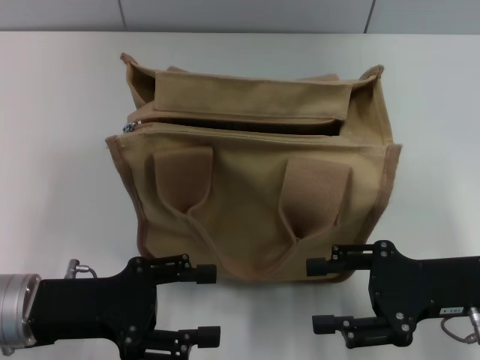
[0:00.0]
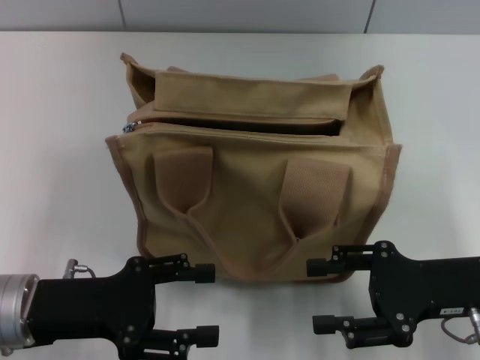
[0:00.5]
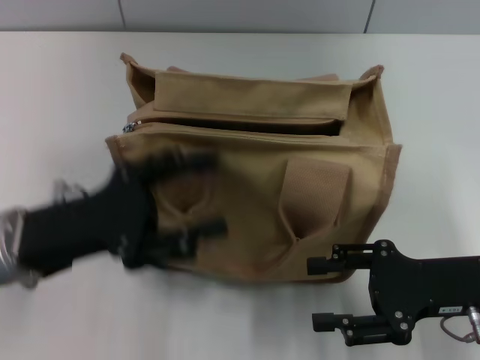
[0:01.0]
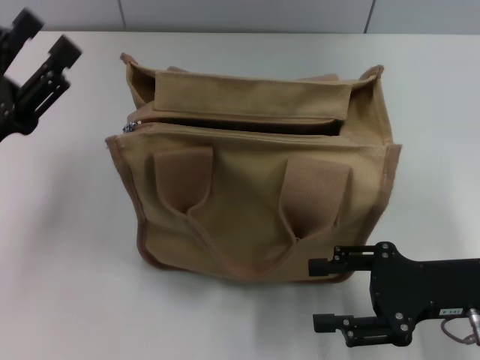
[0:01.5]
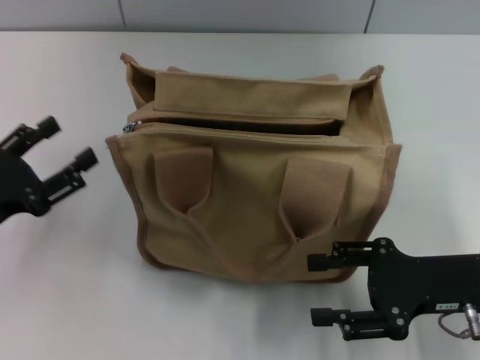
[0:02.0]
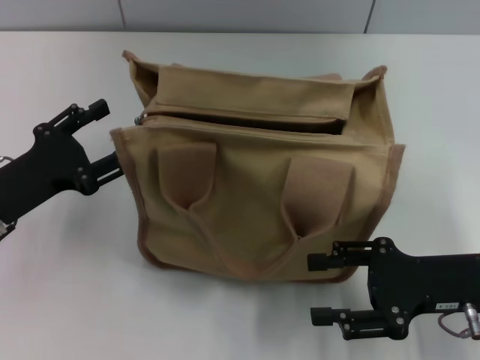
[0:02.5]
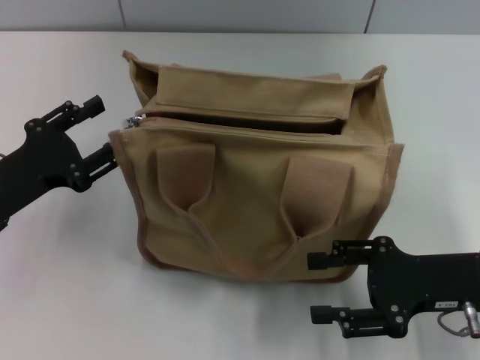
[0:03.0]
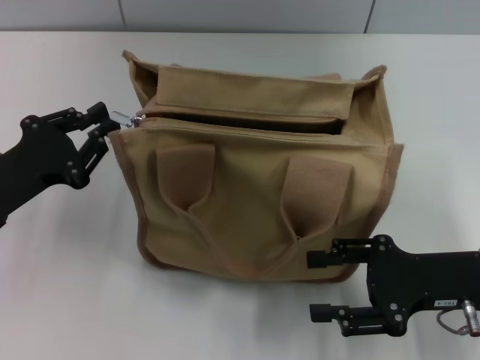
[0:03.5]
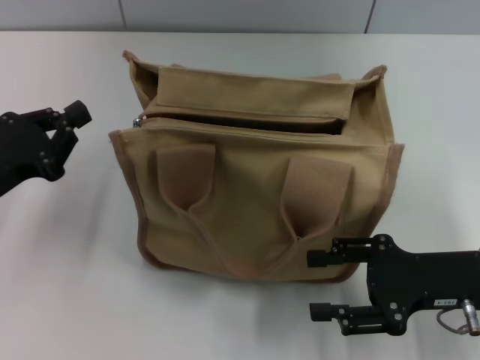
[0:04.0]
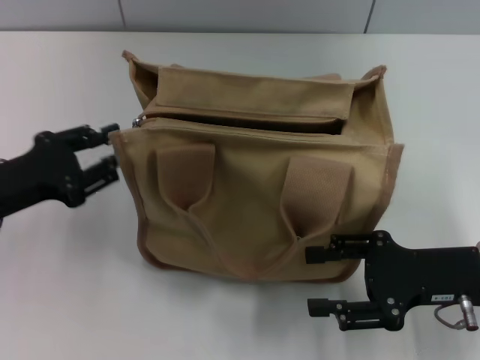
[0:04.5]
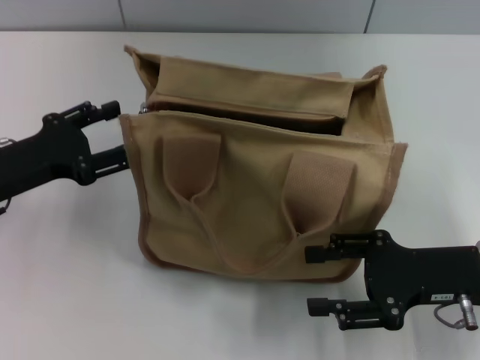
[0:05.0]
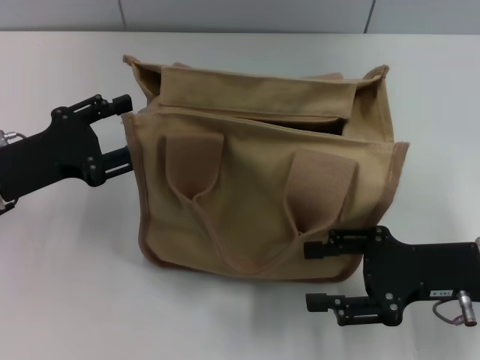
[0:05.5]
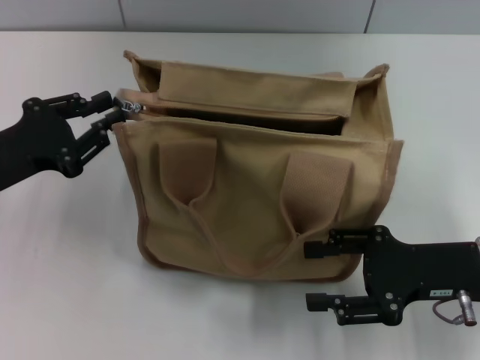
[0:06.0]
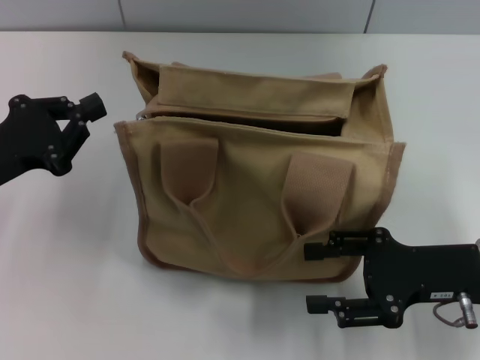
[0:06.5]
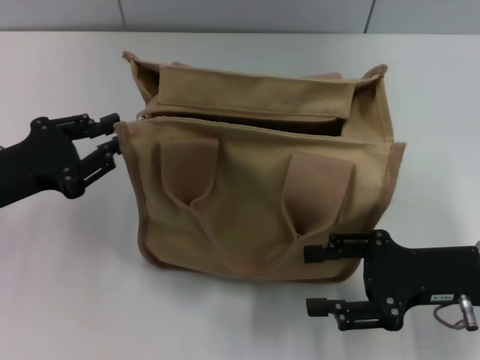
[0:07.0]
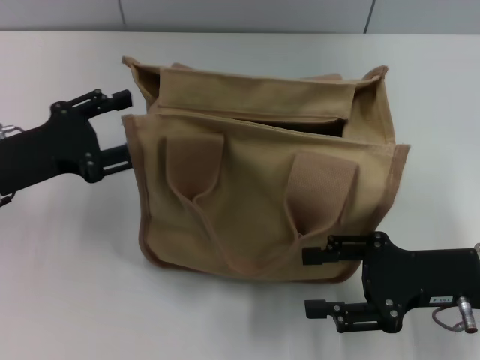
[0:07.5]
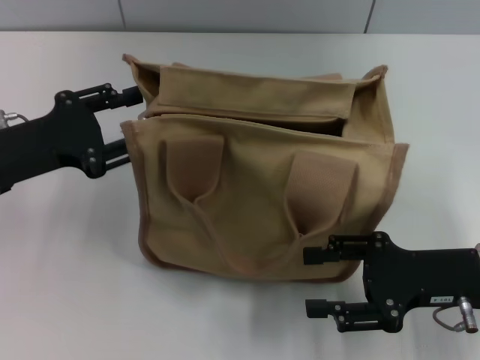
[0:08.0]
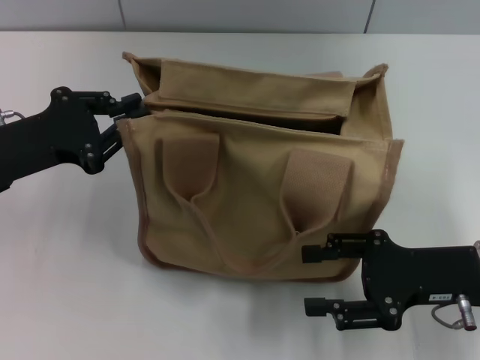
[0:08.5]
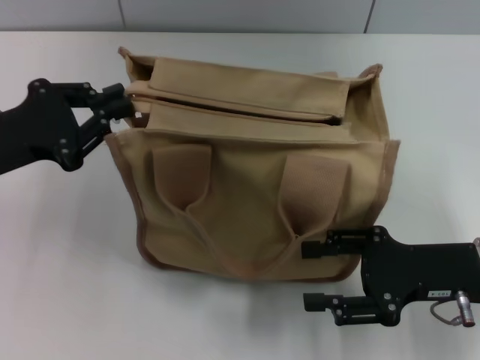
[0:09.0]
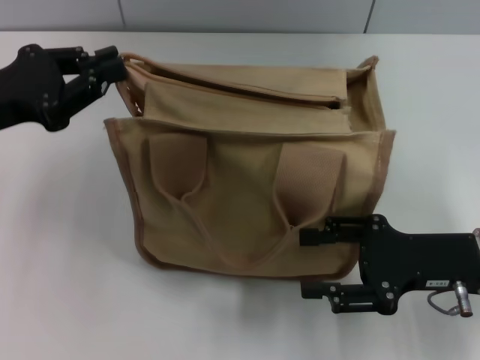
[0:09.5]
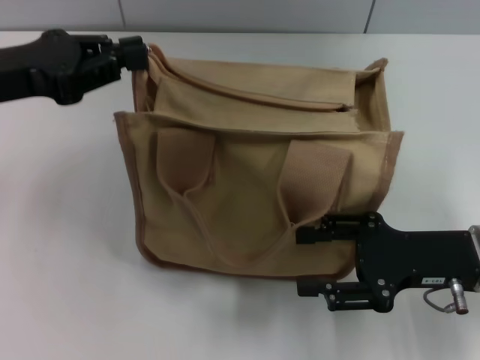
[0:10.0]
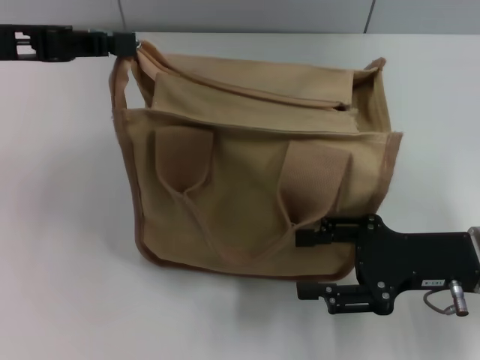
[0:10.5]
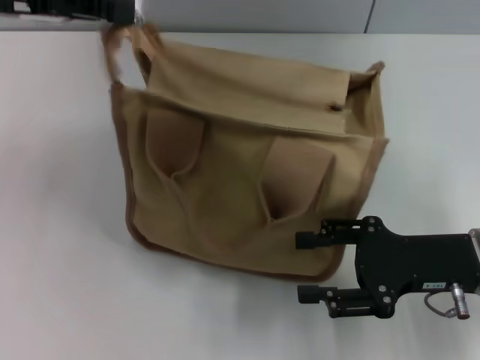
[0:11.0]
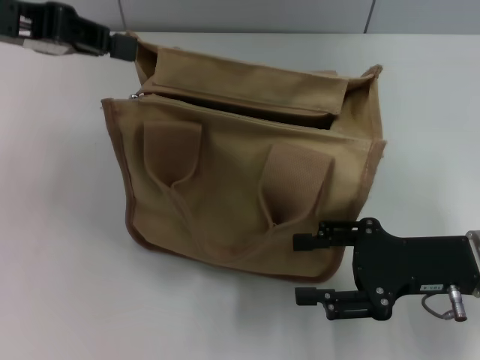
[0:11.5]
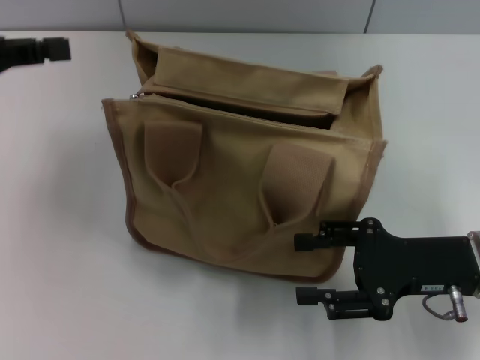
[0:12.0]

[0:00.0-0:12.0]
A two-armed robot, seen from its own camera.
0:00.0 to 0:02.0: The left gripper goes approximately 10 cm to the left.
0:02.0 to 0:04.0: The left gripper closes.
0:04.0 to 0:06.0: The left gripper opens its fingers.
0:06.0 to 0:08.0: The left gripper closes, then reopens.
0:08.0 to 0:10.0: The left gripper is displaced upward by some 10 cm, and closes up.
0:10.0 to 0:12.0: The left gripper is displaced to the left by roughly 5 cm.

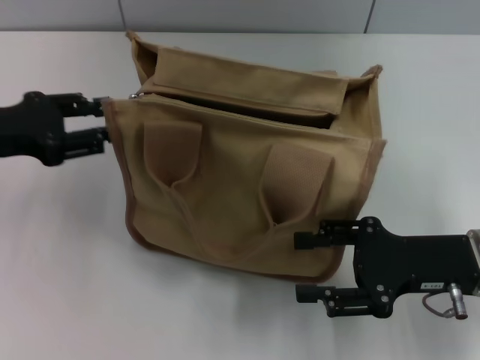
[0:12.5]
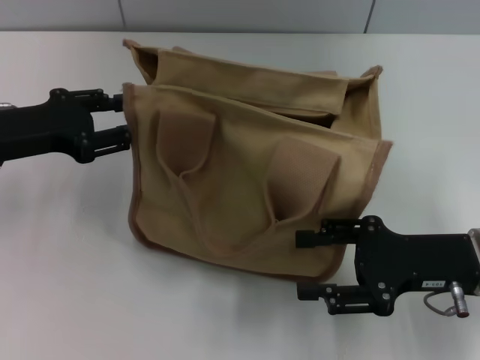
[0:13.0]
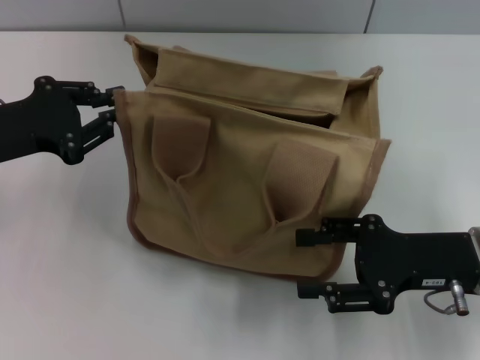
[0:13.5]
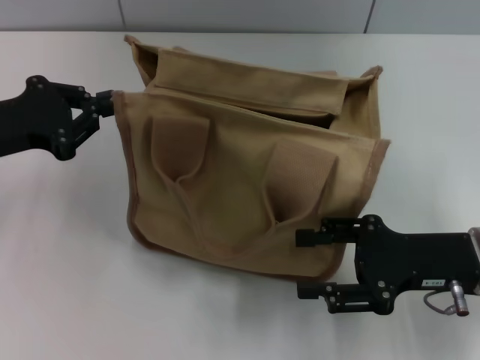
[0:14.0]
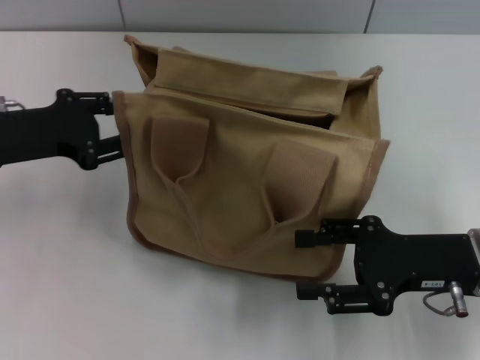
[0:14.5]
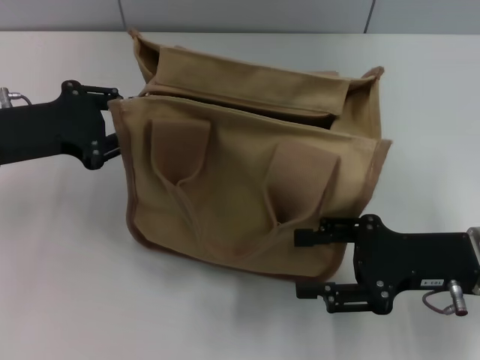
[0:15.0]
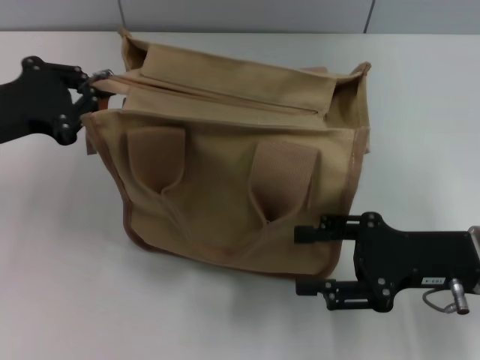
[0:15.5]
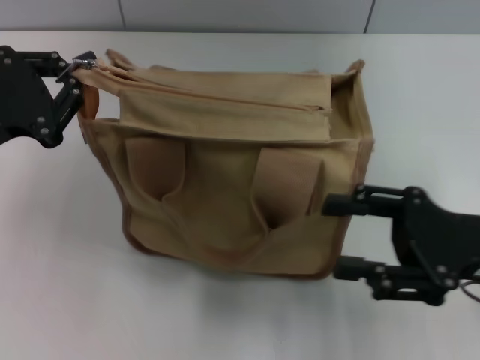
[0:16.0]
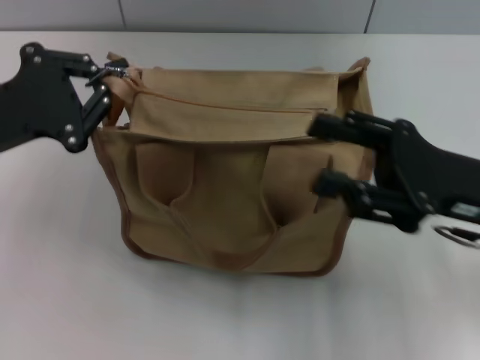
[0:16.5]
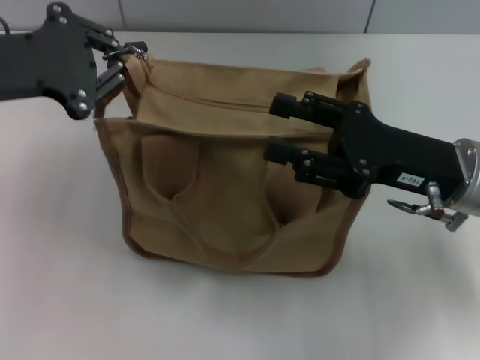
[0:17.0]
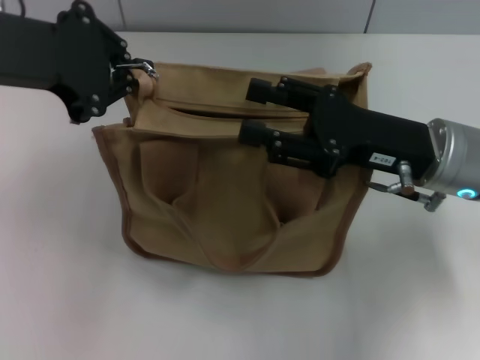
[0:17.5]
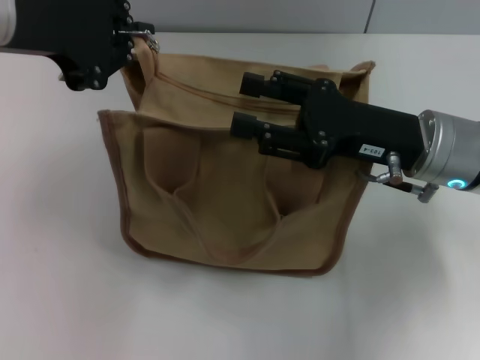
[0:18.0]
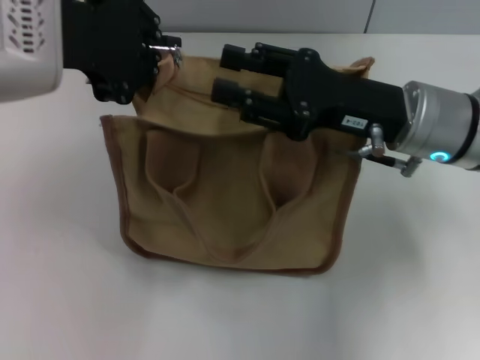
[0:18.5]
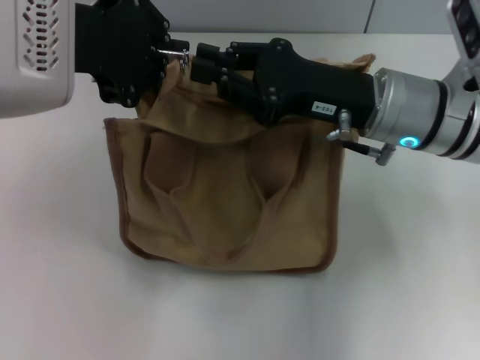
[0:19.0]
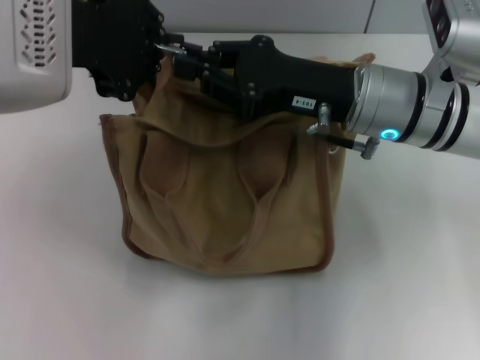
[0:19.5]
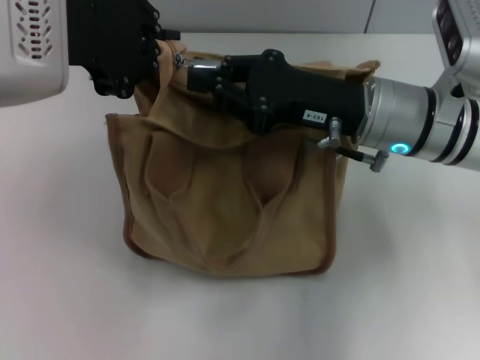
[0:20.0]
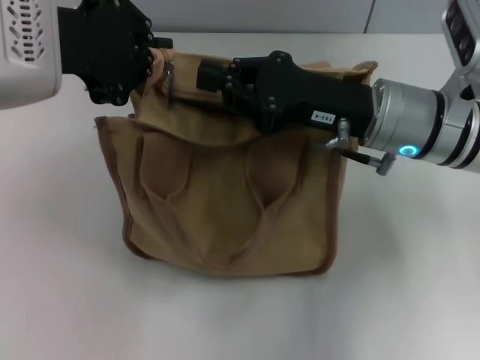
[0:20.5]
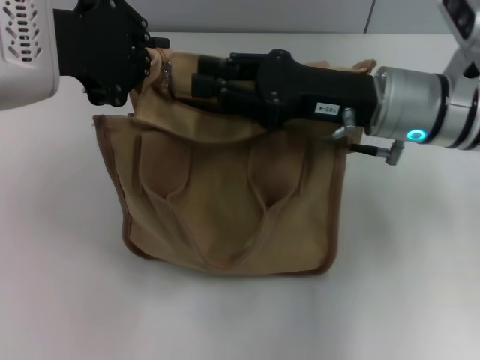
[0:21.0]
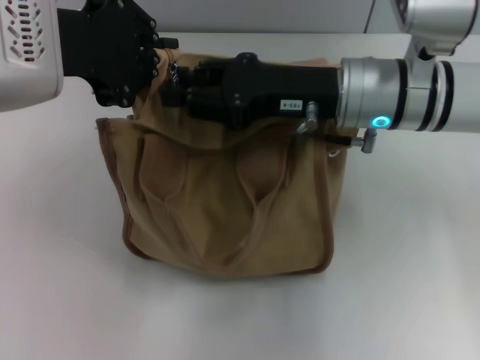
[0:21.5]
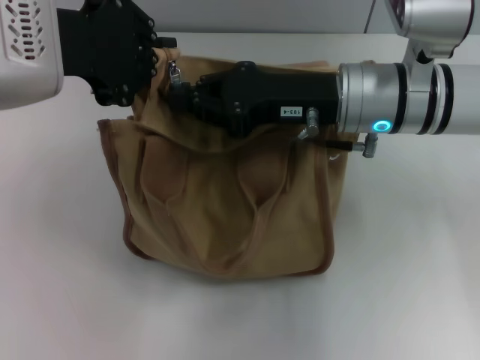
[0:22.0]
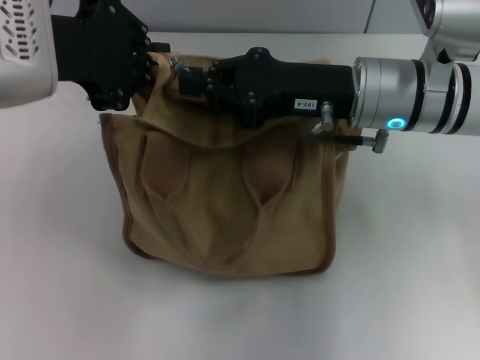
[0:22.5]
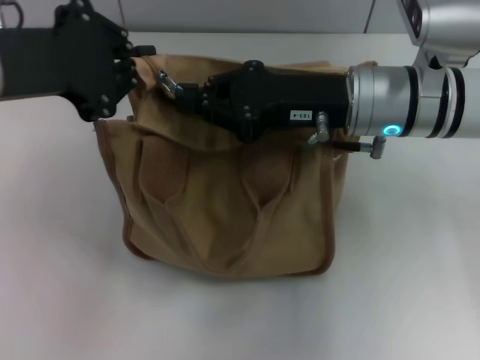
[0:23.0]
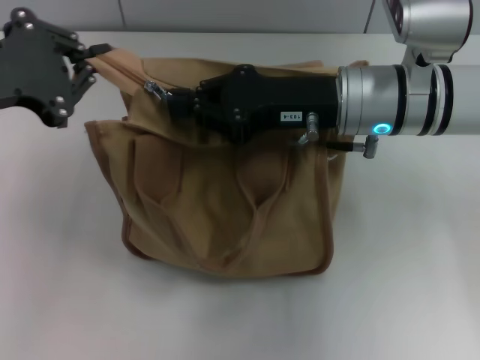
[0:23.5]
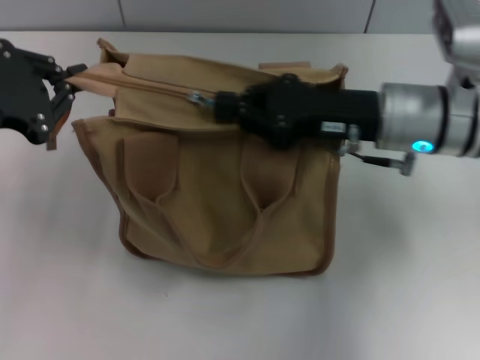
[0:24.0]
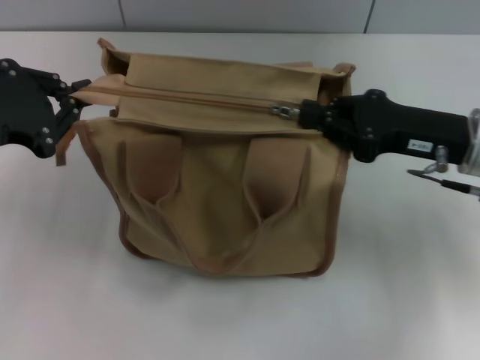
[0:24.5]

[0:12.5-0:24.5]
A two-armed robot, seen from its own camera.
0:12.5 to 0:14.5: The left gripper closes and opens again.
0:14.5 to 0:16.5: The left gripper closes up.
0:16.5 to 0:18.5: The left gripper heads upward and to the right, covering some 15 cm; the right gripper goes approximately 10 cm to the left and forward.
0:18.5 to 0:20.5: The right gripper closes.
0:20.5 to 0:22.5: The grippers move only a little.
0:22.5 to 0:24.5: The right gripper is displaced to the right by roughly 10 cm; the left gripper travels to the left and downward by approximately 15 cm.

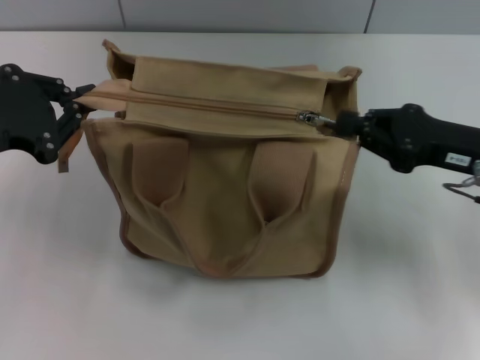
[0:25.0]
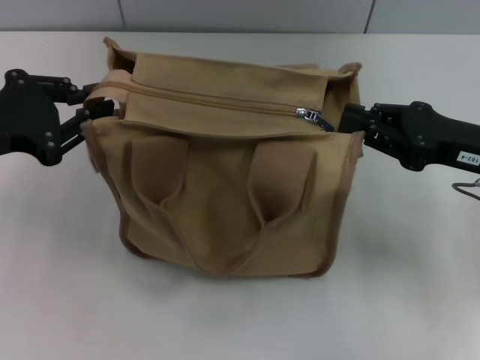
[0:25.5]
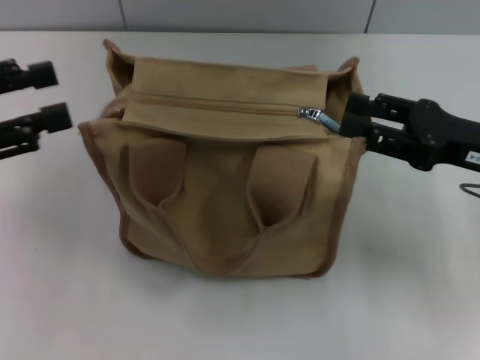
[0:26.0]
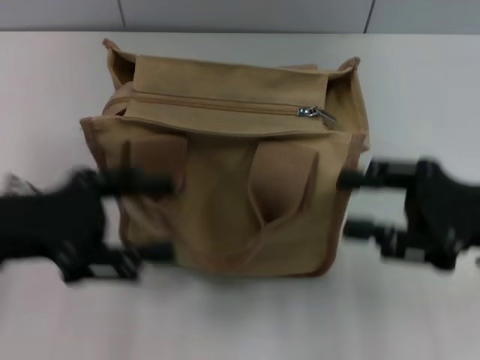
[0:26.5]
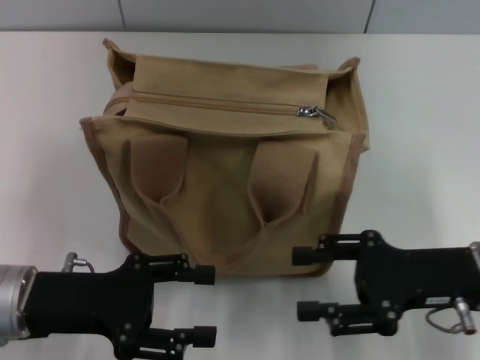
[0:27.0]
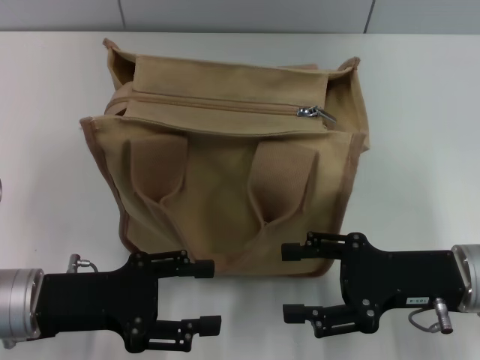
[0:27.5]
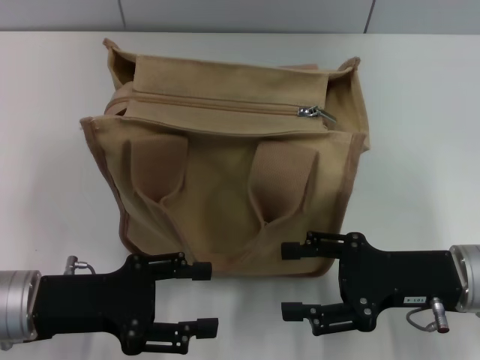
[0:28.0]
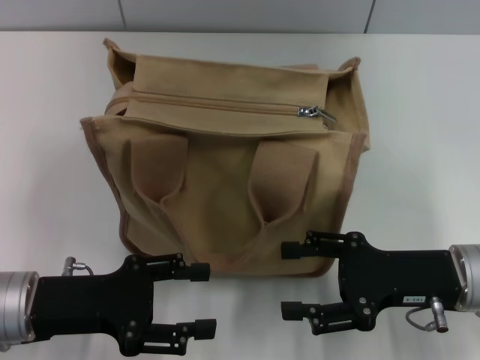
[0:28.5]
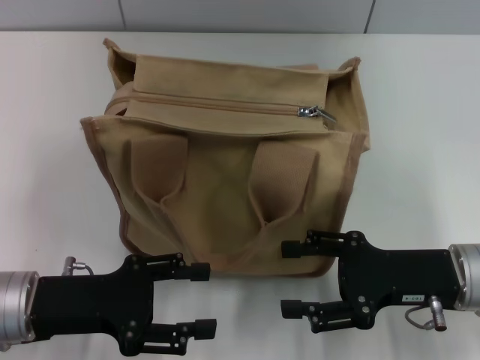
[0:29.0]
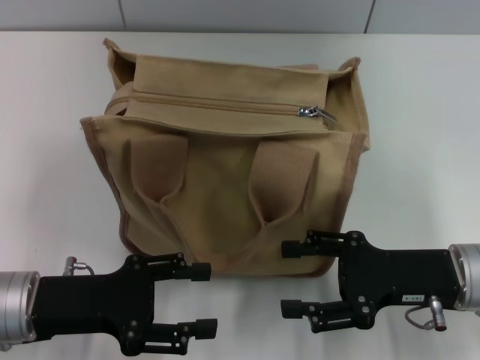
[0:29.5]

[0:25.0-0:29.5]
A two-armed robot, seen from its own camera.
Step, 0:25.5 to 0:26.0: Grab the zipper with your left hand.
0:25.0 to 0:27.0: The left gripper heads downward, backward and to the right, covering approximately 15 cm, and opens up; the right gripper is displaced backward by roughly 5 cm, and opens up.
0:27.0 to 0:29.5: There are only small adjustments of the grippers.
